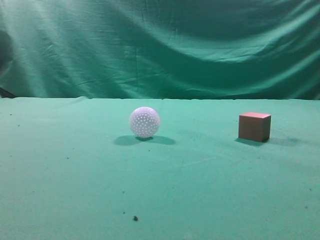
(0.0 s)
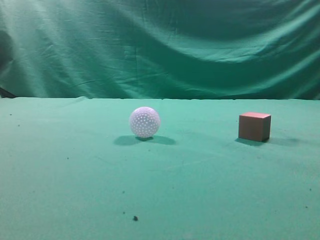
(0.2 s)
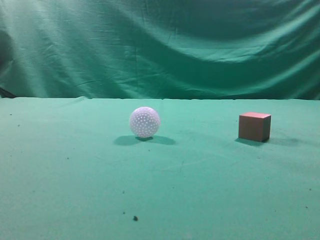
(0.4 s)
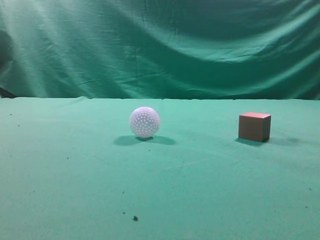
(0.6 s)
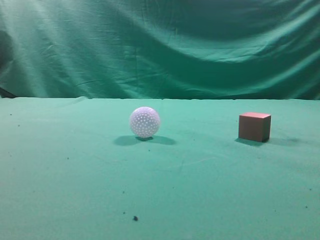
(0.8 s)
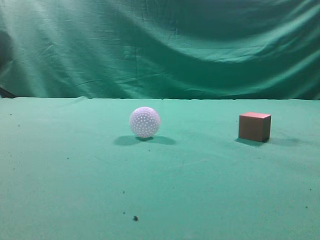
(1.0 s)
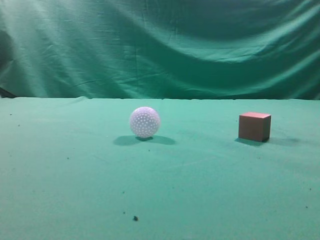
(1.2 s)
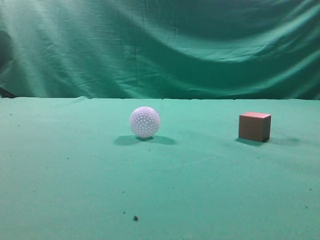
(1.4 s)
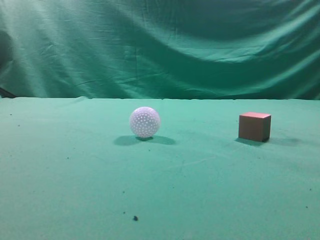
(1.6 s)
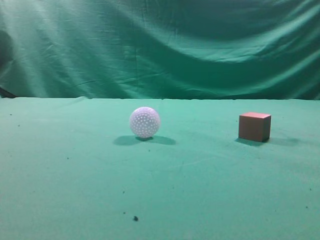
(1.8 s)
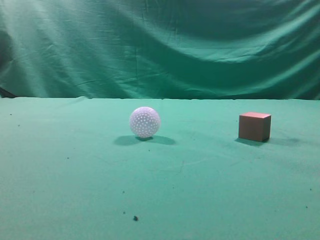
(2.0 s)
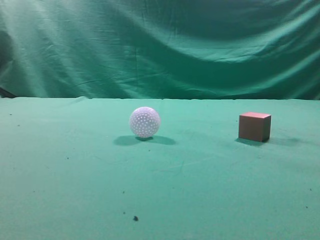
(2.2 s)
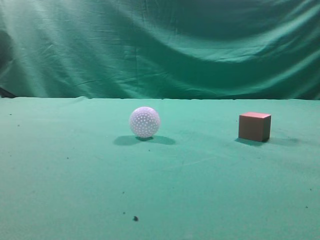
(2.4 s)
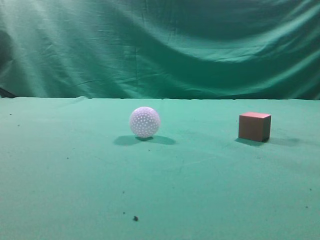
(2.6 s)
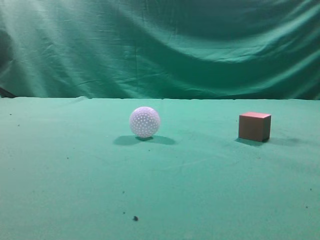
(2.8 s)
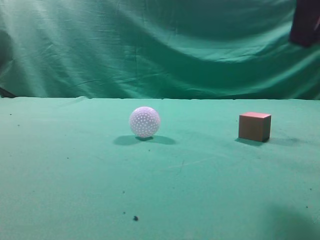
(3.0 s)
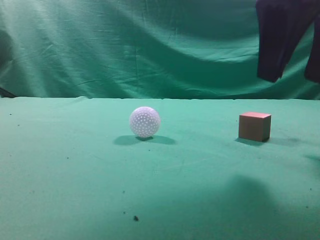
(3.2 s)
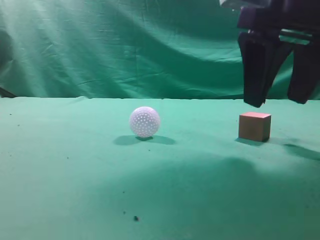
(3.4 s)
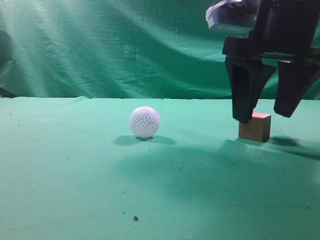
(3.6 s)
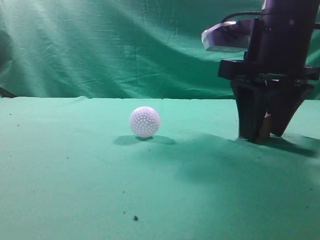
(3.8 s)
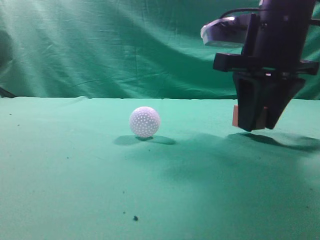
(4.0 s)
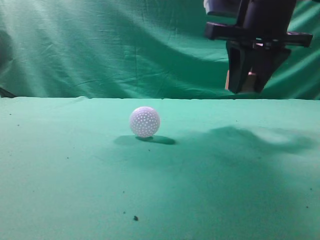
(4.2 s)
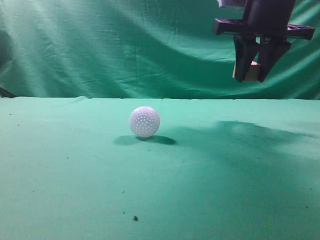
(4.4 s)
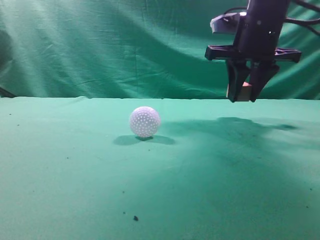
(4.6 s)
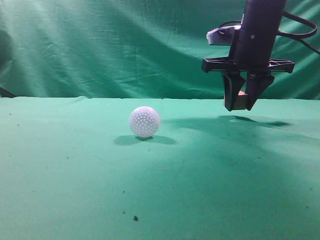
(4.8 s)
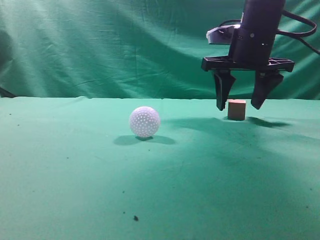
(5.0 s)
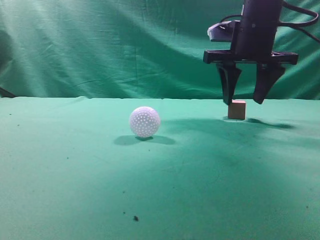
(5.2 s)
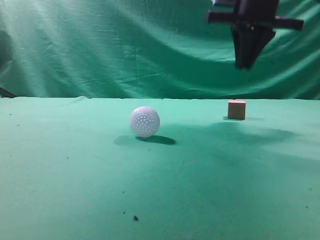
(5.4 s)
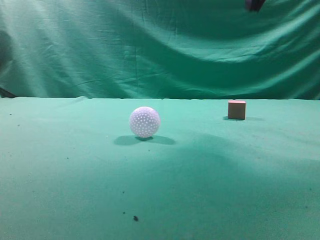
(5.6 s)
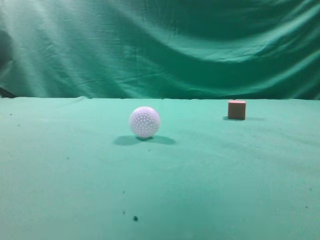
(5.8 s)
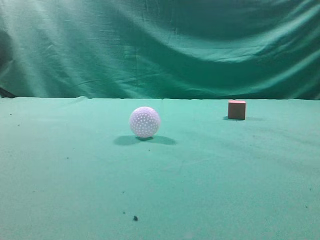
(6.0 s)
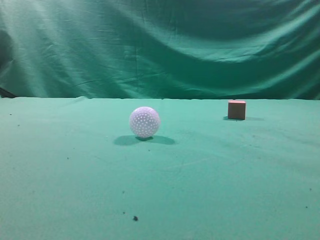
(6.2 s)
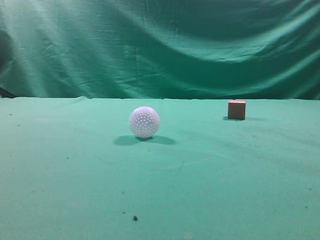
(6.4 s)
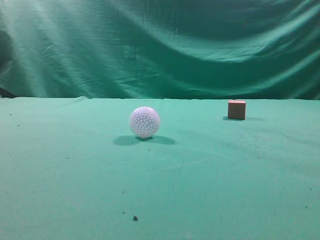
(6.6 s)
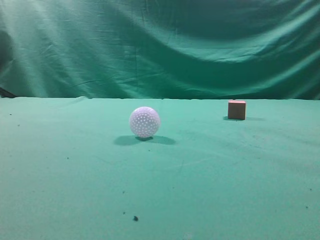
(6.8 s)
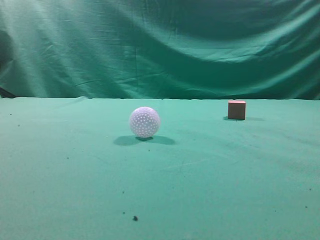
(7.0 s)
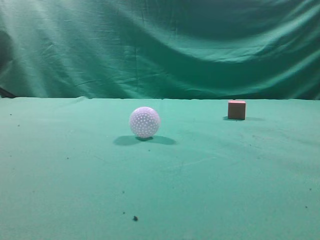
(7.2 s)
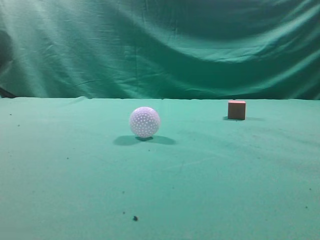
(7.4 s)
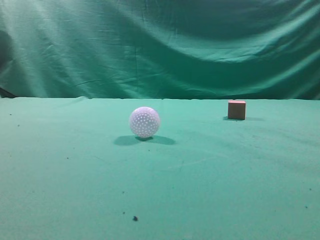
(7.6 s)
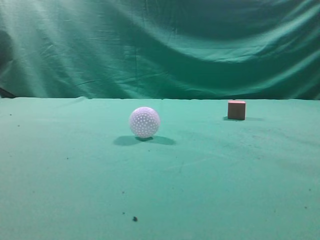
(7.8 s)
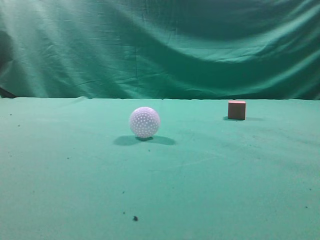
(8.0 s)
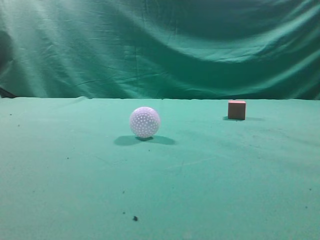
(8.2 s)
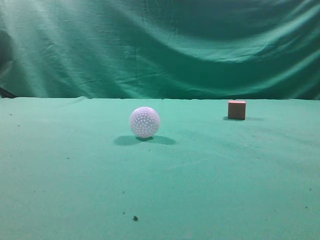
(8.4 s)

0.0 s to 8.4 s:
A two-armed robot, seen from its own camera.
Task of the whole recording: pick up the cube block and place it in another position on the table.
Step, 0.0 to 4.0 s: Pick up the small cube.
Step, 4.2 to 5.0 s: Place the small cube on the ahead of the table.
2.8 to 4.2 s: The right gripper shifts about 15 cm forward, and opens, then closes again.
4.2 to 5.6 s: The right gripper is displaced upward by roughly 15 cm, and closes its fingers.
5.6 to 7.0 s: The right gripper heads backward and to the right, covering approximately 25 cm.
